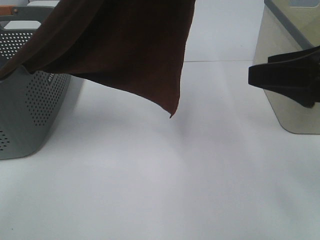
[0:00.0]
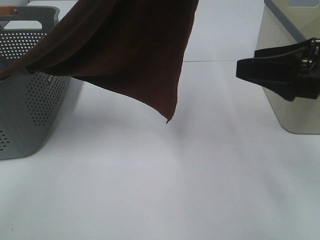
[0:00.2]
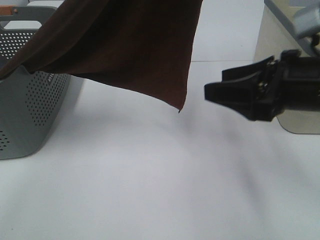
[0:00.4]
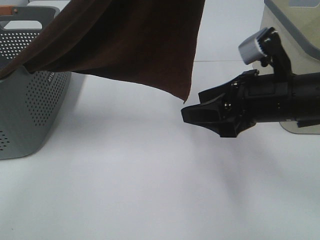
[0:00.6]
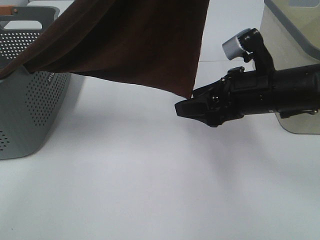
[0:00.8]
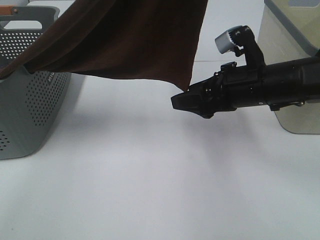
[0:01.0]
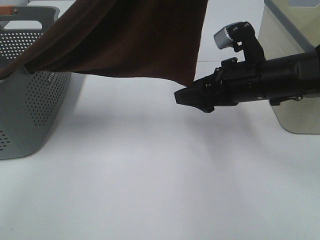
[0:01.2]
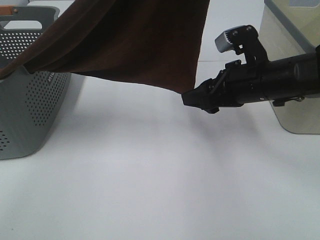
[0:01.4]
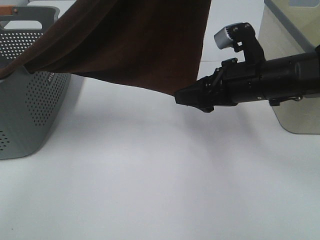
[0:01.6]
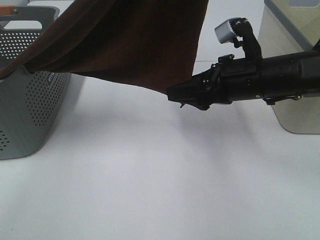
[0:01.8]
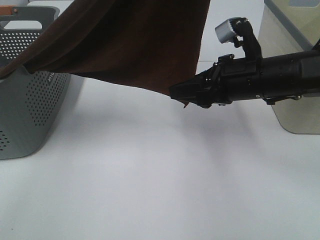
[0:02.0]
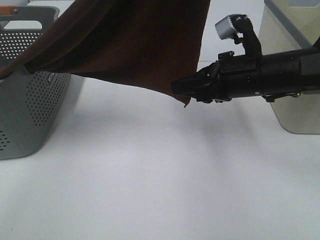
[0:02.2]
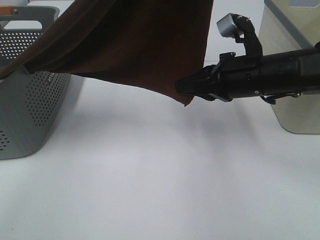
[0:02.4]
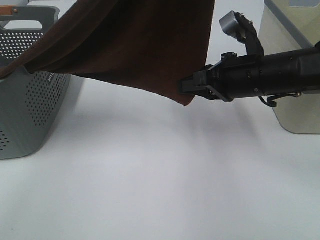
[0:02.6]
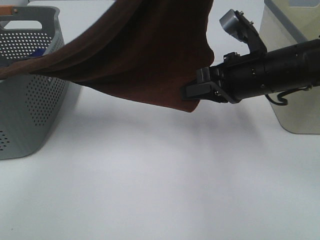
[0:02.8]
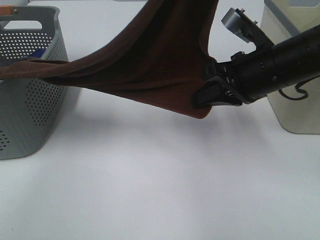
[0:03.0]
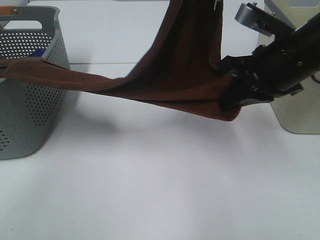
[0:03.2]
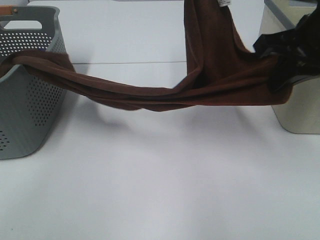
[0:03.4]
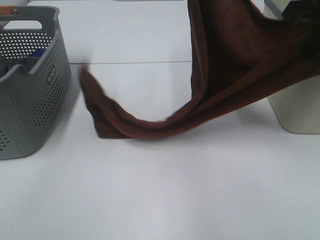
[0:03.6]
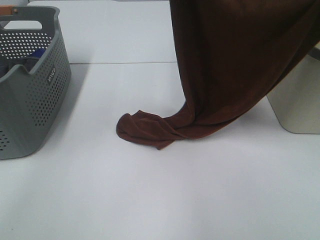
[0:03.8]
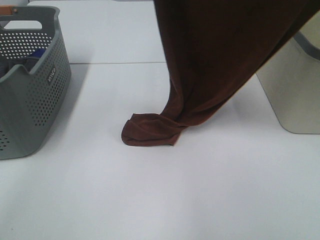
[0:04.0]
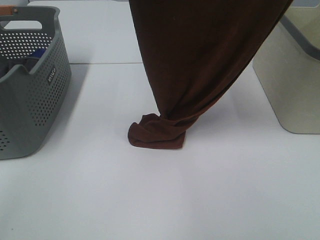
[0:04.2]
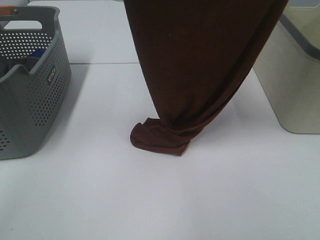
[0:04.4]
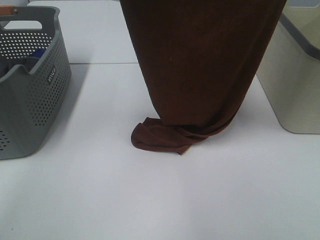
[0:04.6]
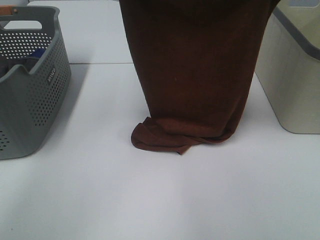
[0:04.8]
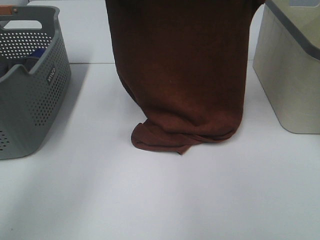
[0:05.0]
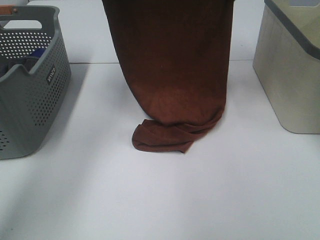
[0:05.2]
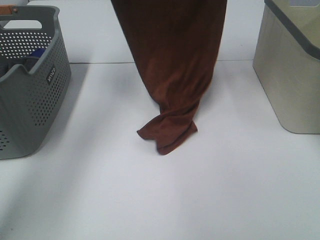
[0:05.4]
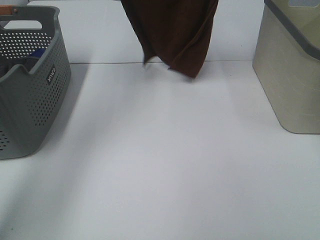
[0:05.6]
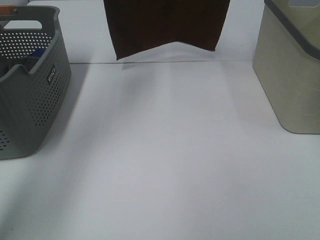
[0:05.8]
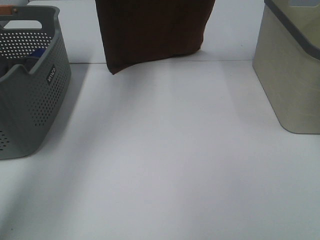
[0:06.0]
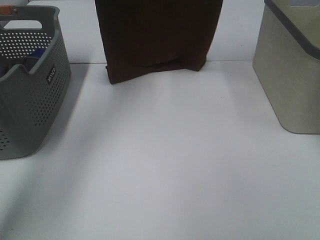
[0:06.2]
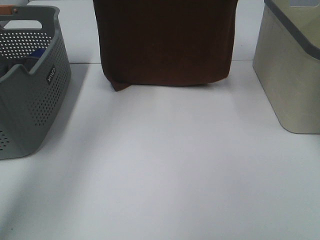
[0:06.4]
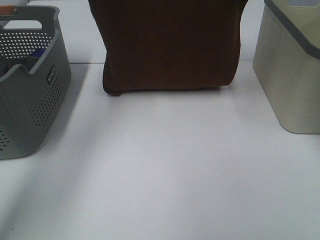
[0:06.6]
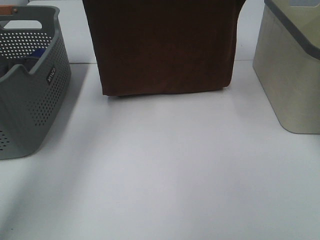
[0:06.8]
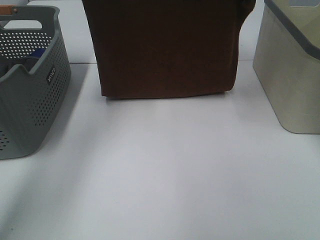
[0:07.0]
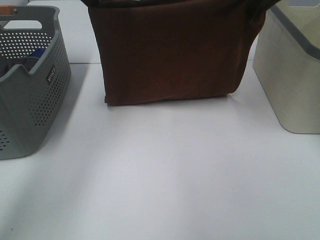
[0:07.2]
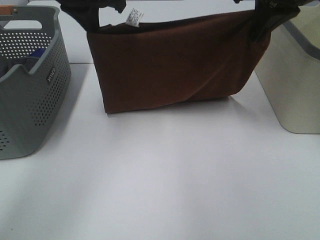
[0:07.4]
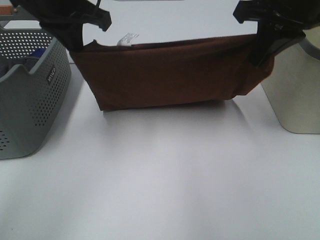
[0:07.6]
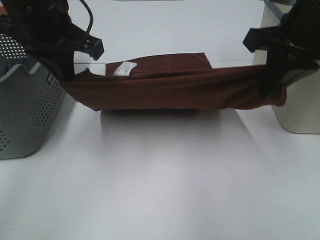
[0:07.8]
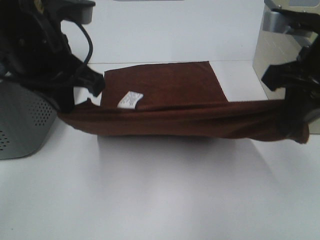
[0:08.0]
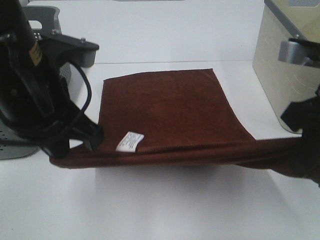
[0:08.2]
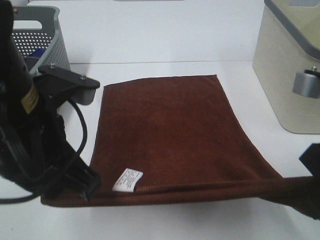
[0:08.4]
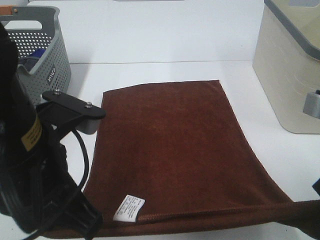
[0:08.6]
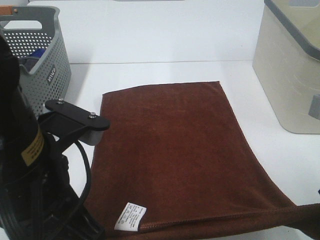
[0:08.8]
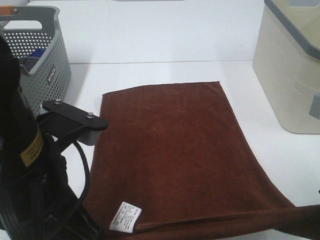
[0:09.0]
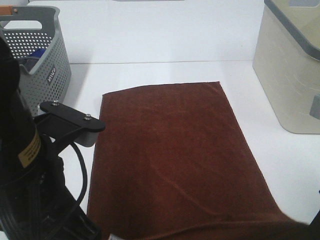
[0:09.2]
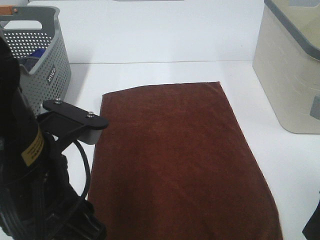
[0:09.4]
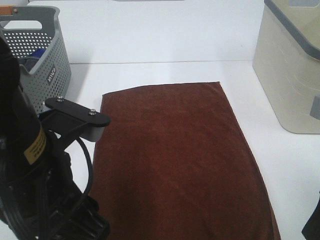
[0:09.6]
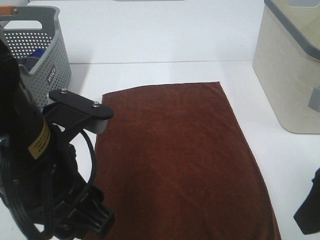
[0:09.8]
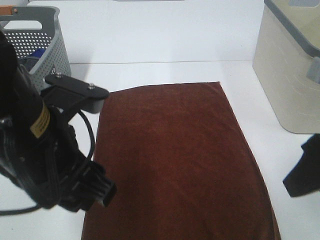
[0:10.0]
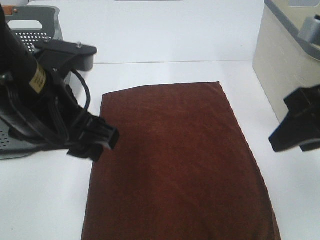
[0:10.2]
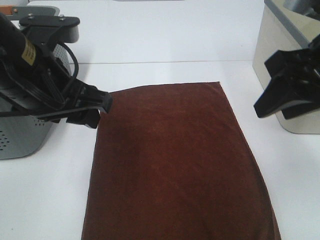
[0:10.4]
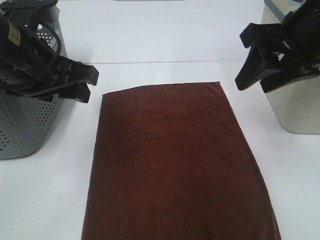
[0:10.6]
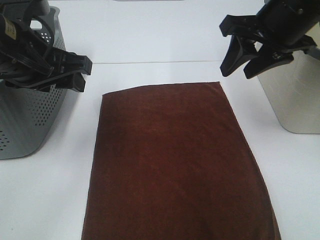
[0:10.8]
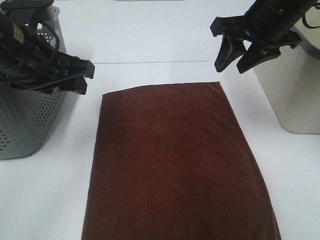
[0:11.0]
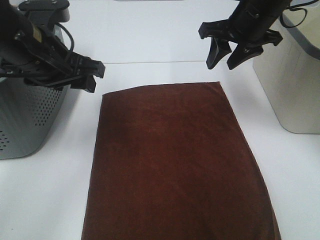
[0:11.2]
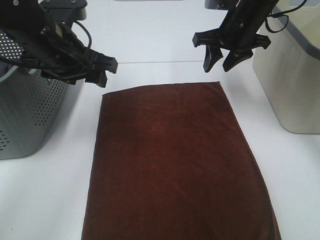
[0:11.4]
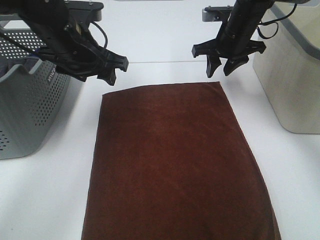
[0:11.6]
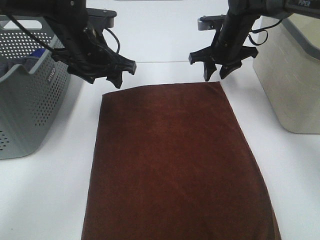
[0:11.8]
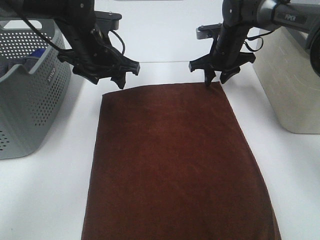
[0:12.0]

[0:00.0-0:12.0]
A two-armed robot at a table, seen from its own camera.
Task of the whole recording: Remove the towel and place it.
Step, 0:00.0 to 0:02.2: Right hand: grab a corner of the brown towel and straighten it.
Step, 0:02.4 to 0:05.0: Left hand: spread the brown towel flat on the table.
Step, 0:02.4 to 0:05.0: Right hand: spread the brown towel flat on the table.
0:00.0 to 0:01.6: The right gripper heads forward, downward and to the left, covering approximately 15 cm.
0:01.6 to 0:03.0: The left gripper heads downward, covering approximately 5 cm. The right gripper closes up.
0:03.0 to 0:04.4: The left gripper shifts roughly 15 cm to the left and upward; the right gripper moves upward, roughly 25 cm.
0:04.4 to 0:06.0: The left gripper moves forward and to the left, about 15 cm. The right gripper travels forward by about 15 cm.
0:06.0 to 0:07.6: Both grippers move downward and backward, some 20 cm.
0:07.6 to 0:09.0: The grippers both shift backward by about 20 cm.
0:09.0 to 0:10.4: The two grippers go approximately 10 cm forward. The left gripper opens its fingers; the right gripper opens.
0:10.4 to 0:12.0: The right gripper is displaced forward and downward by some 35 cm. Meanwhile the left gripper shifts some 20 cm forward.

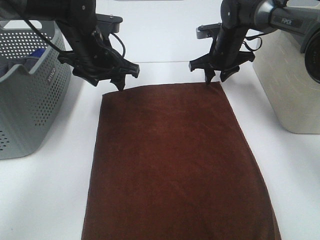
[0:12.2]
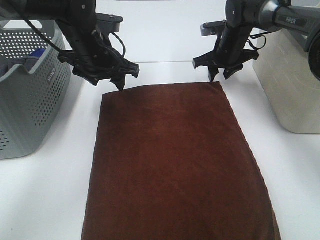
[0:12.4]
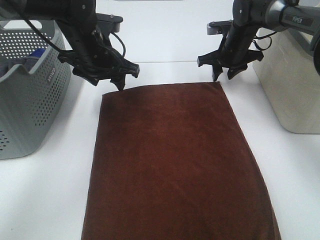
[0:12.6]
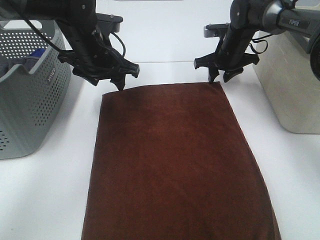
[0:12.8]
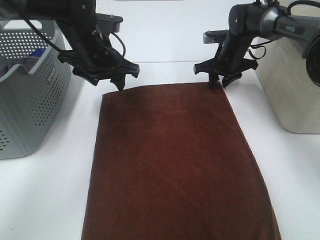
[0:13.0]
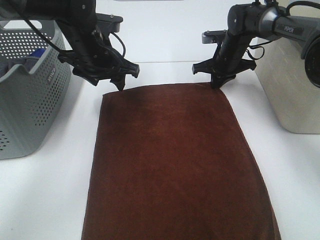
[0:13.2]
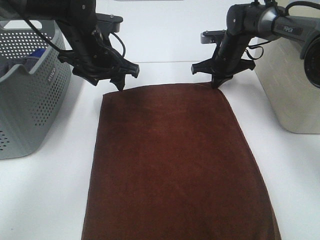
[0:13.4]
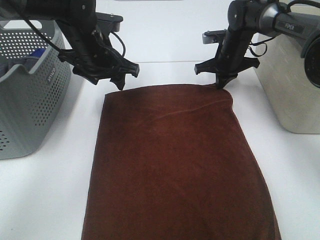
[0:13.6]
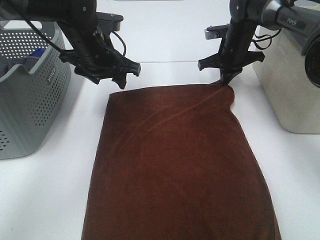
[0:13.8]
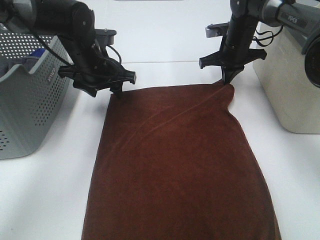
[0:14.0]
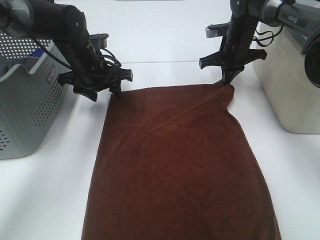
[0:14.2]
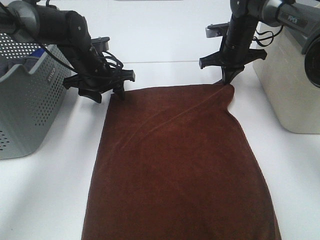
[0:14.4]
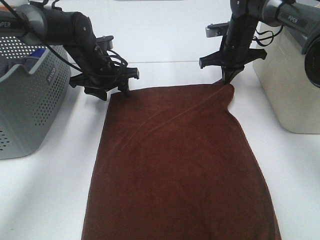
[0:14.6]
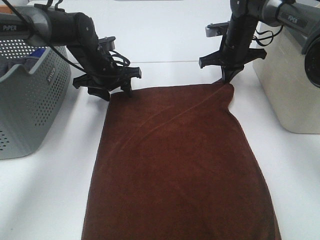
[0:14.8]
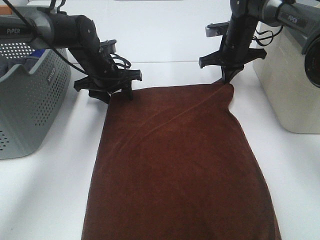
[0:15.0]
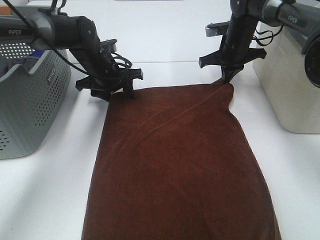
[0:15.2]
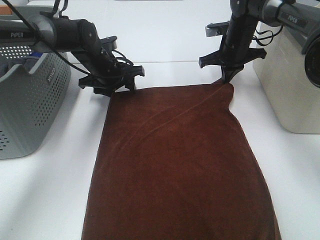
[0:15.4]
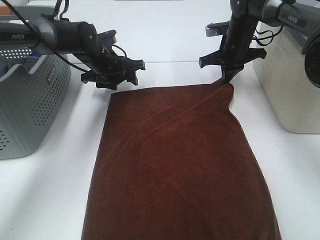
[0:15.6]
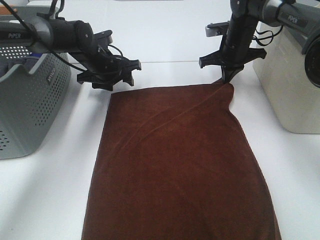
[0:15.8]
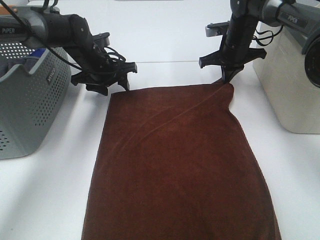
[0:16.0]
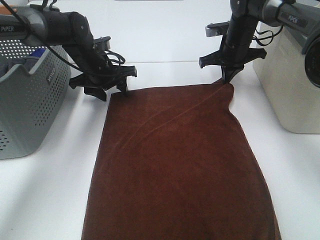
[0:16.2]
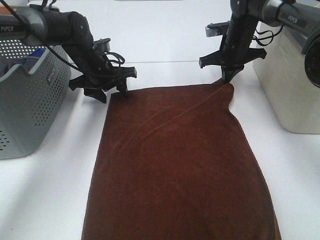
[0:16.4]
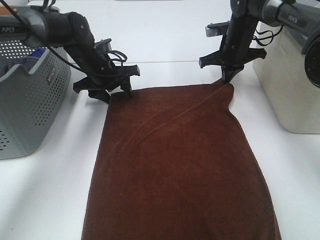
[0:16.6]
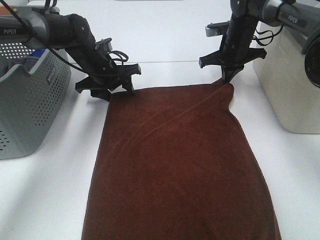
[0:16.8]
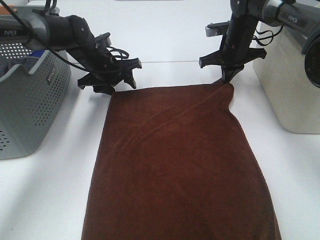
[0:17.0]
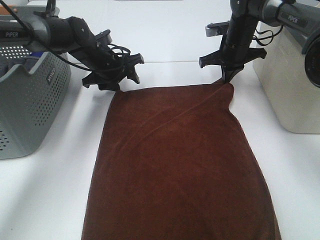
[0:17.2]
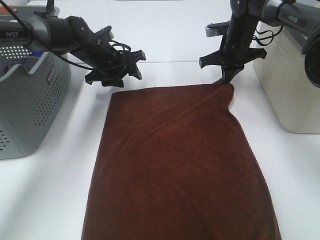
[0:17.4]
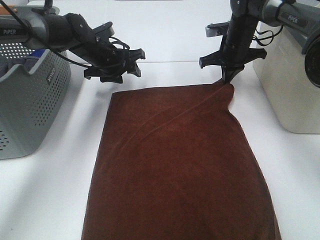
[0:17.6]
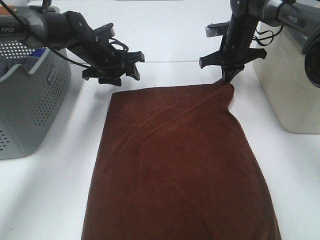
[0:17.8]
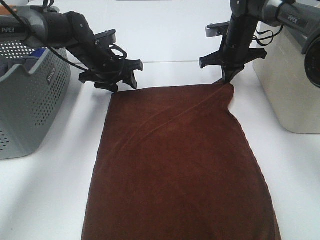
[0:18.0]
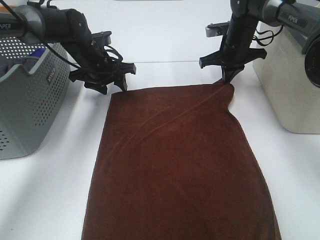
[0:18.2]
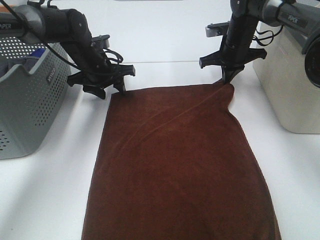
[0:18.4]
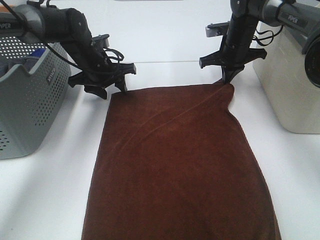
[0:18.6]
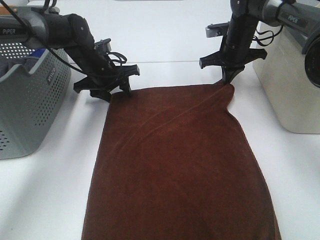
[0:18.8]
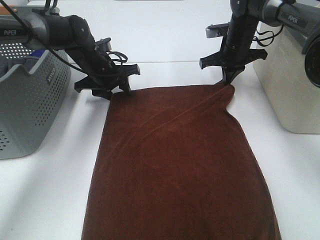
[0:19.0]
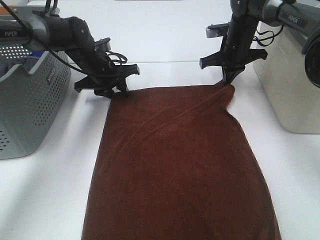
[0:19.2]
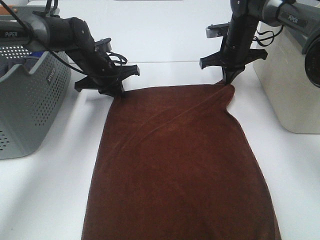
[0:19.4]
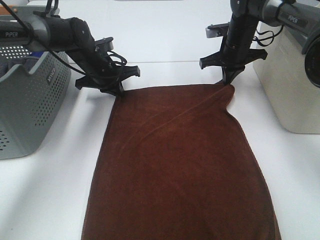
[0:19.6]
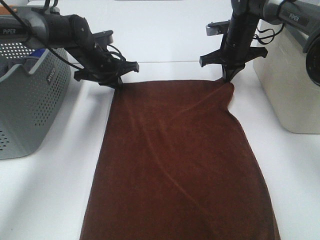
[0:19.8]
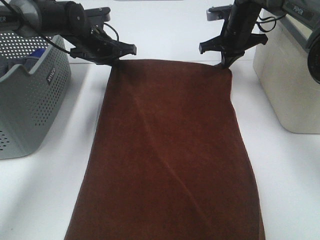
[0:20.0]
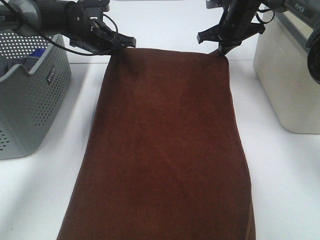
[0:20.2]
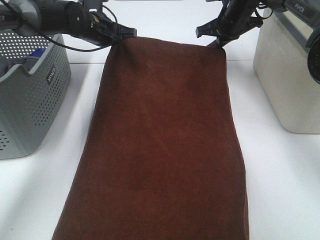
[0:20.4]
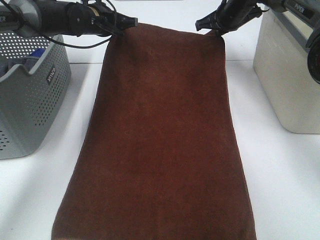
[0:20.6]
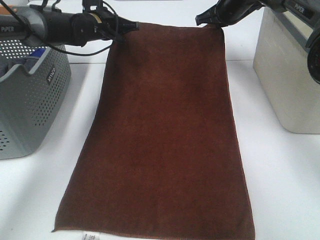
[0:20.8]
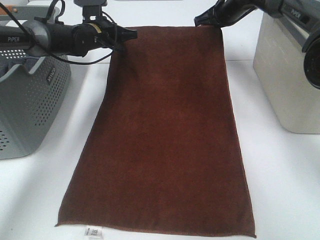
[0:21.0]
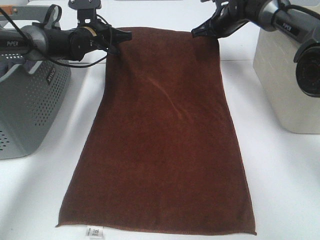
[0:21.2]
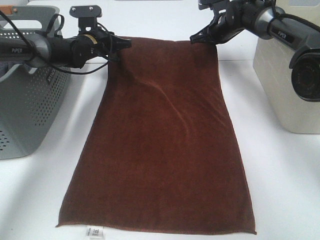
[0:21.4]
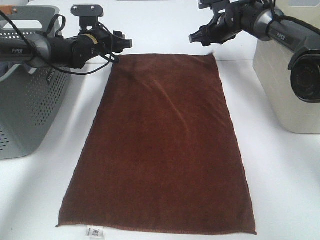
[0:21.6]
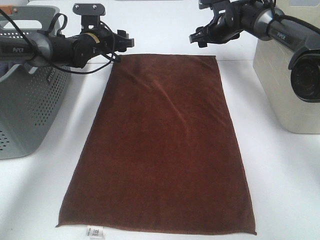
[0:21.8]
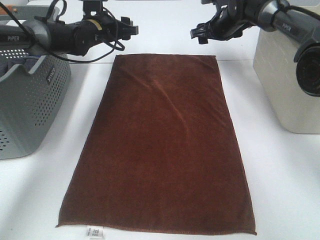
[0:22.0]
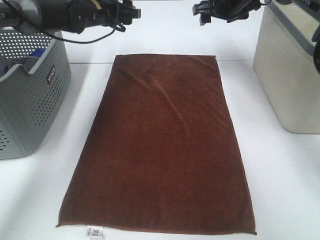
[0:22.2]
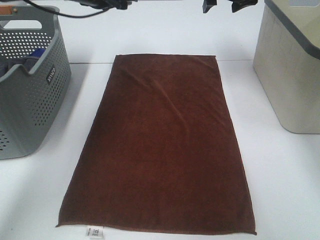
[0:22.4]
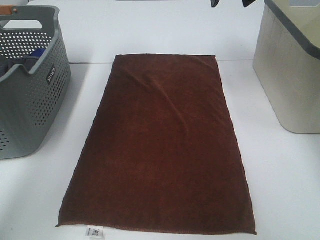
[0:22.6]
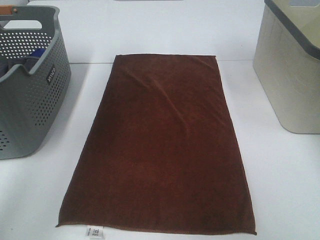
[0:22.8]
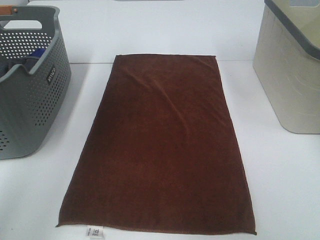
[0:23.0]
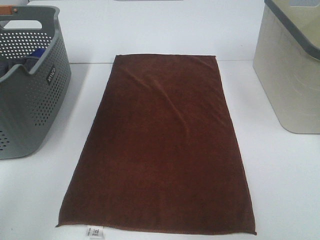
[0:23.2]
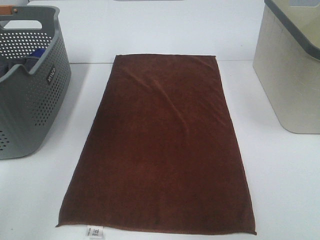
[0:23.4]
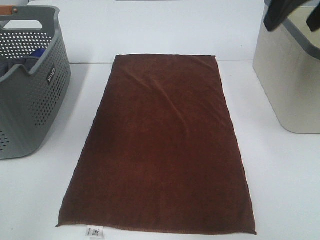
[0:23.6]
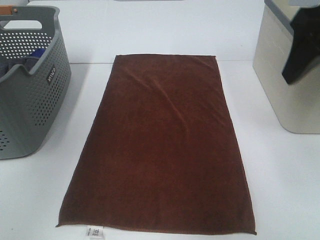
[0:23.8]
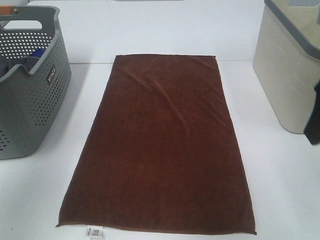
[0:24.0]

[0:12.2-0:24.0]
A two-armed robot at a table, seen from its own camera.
Task of the whole recording: Remove the towel and place it.
Step, 0:12.2 to 0:15.0: Left hand:adjust the brown towel.
Step, 0:12.2 to 0:15.0: Right hand:adjust the brown towel.
0:12.2 to 0:13.6: The right gripper closes.
0:13.6 to 0:15.2: The left gripper moves downward and forward, about 10 cm.
0:15.2 to 0:18.2: The grippers make only small movements.
0:18.2 to 0:19.6: The left gripper closes up.
0:19.6 to 0:21.0: The right gripper shifts some 5 cm forward and upward, while the left gripper heads forward, covering about 5 cm.
0:21.0 to 0:22.6: Both grippers move upward and backward, about 20 cm. The left gripper opens up, while the right gripper opens its fingers.
0:22.6 to 0:24.0: Both grippers travel together backward, about 30 cm.
